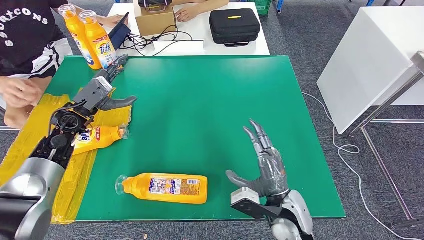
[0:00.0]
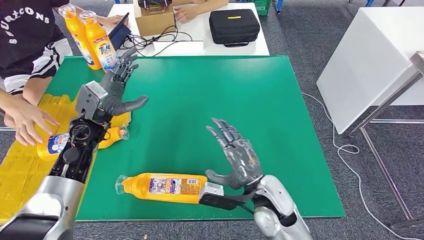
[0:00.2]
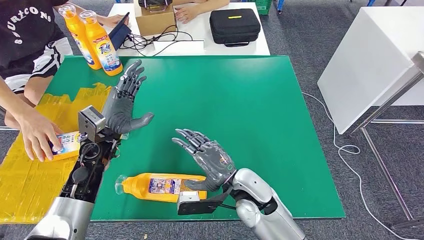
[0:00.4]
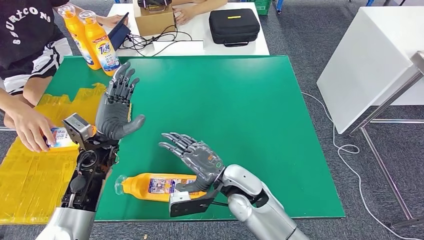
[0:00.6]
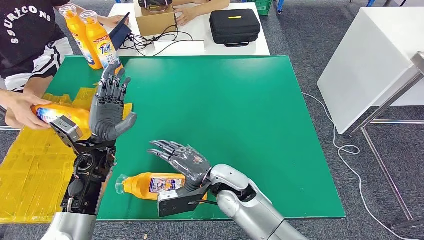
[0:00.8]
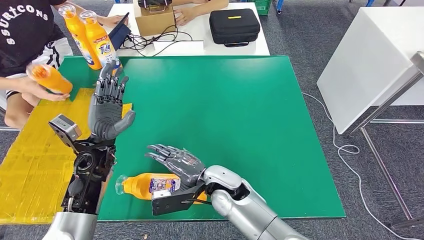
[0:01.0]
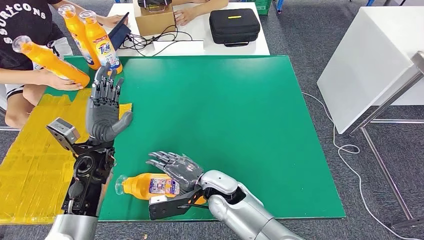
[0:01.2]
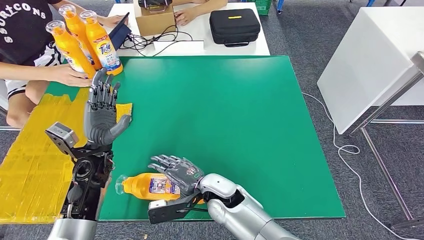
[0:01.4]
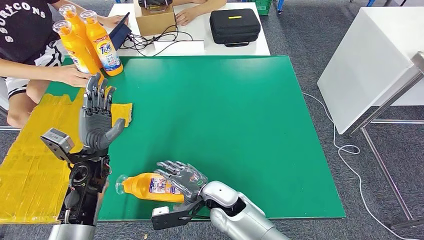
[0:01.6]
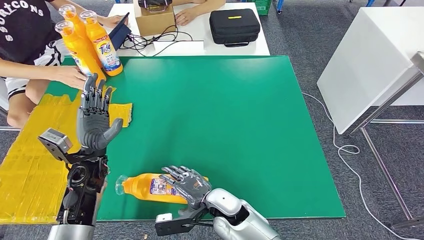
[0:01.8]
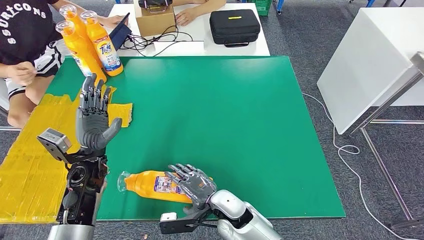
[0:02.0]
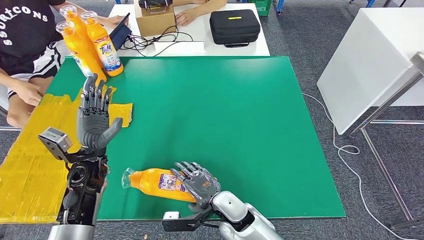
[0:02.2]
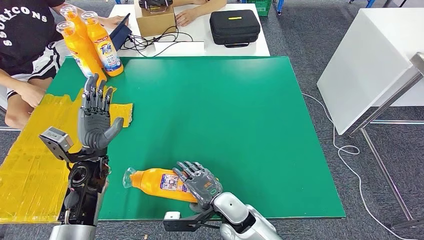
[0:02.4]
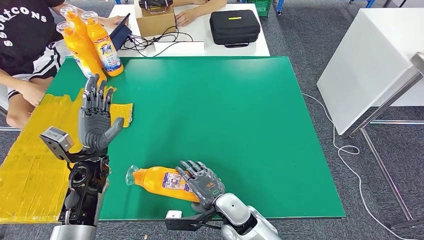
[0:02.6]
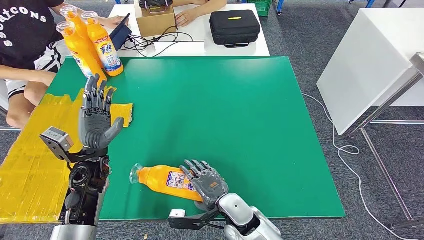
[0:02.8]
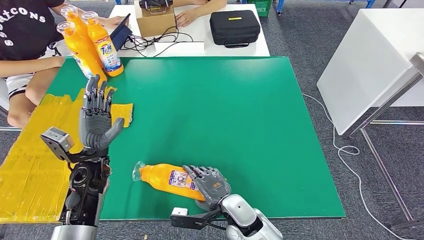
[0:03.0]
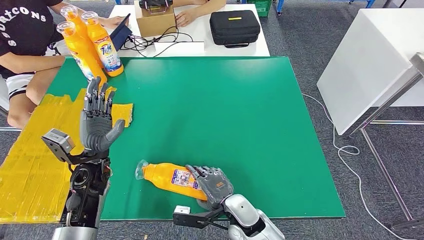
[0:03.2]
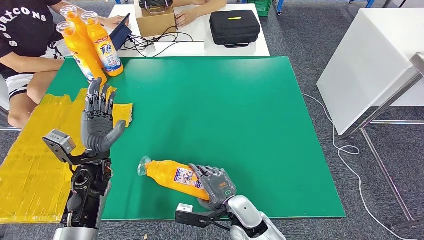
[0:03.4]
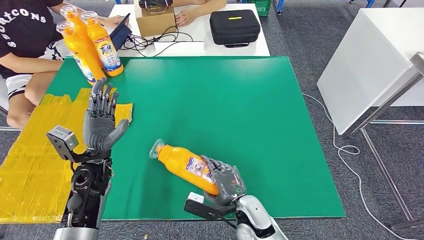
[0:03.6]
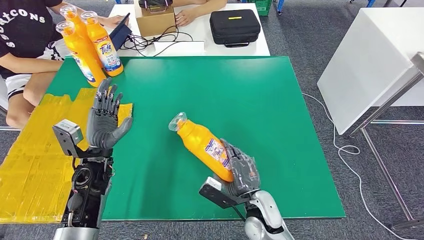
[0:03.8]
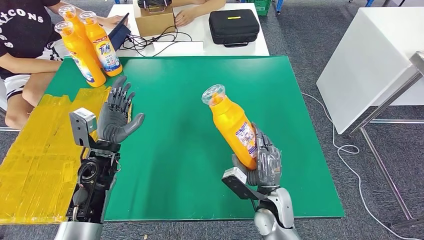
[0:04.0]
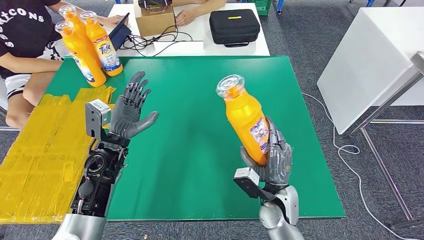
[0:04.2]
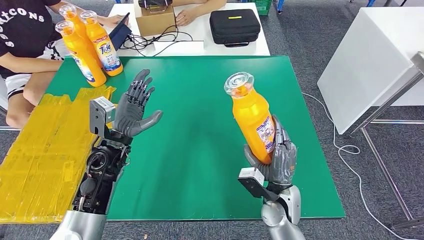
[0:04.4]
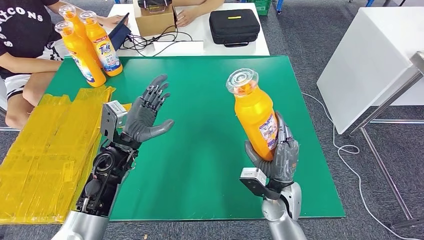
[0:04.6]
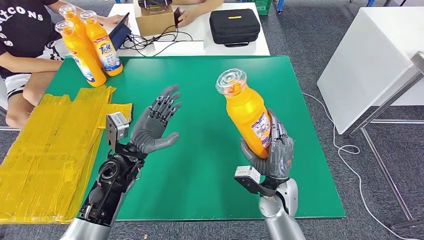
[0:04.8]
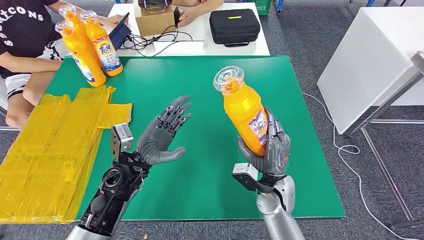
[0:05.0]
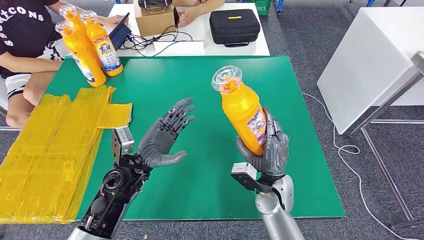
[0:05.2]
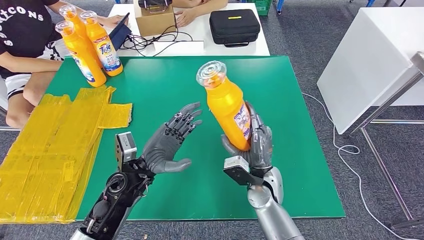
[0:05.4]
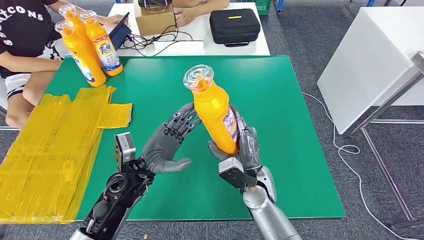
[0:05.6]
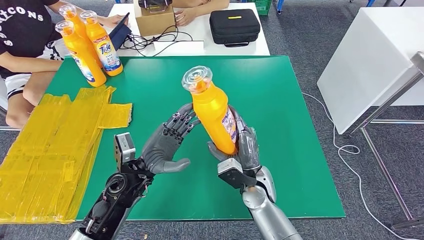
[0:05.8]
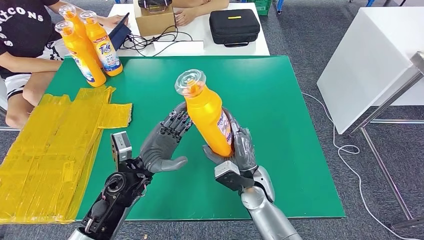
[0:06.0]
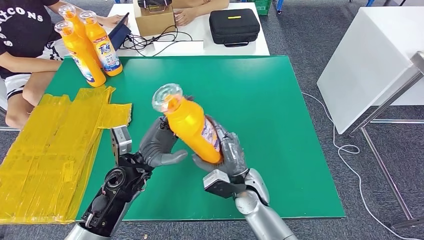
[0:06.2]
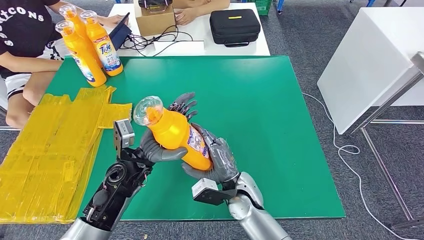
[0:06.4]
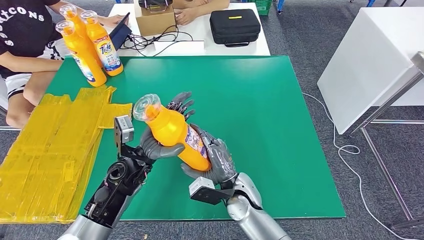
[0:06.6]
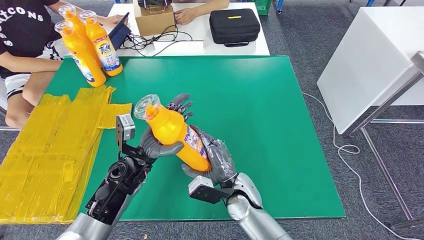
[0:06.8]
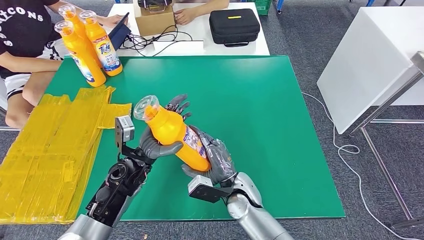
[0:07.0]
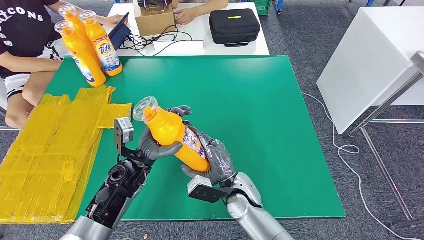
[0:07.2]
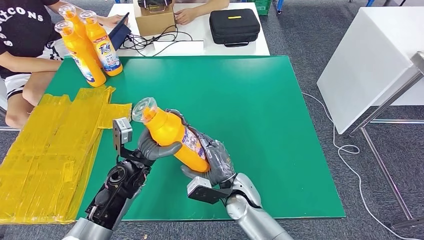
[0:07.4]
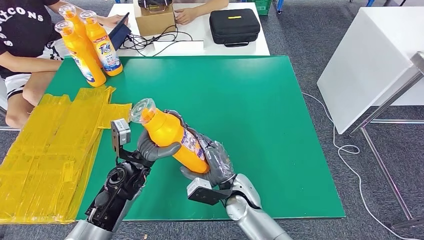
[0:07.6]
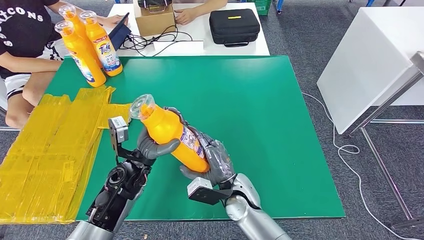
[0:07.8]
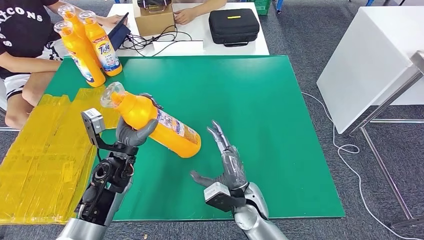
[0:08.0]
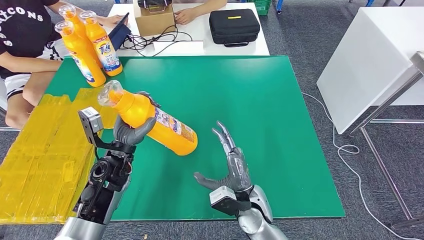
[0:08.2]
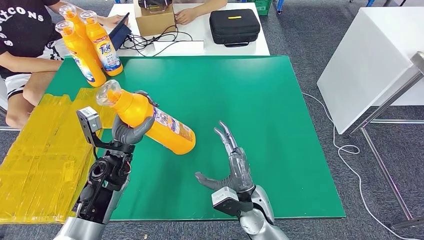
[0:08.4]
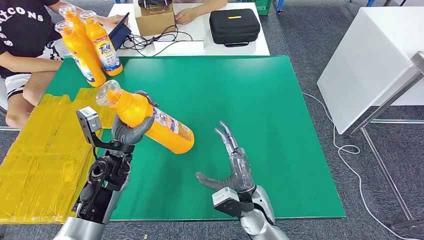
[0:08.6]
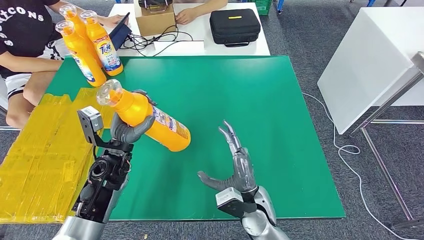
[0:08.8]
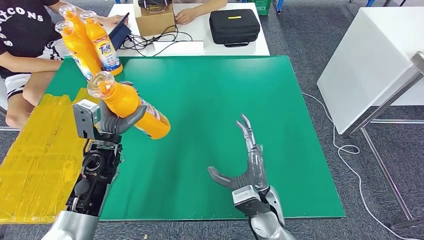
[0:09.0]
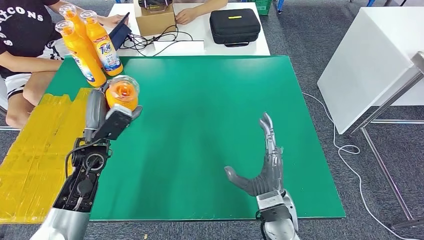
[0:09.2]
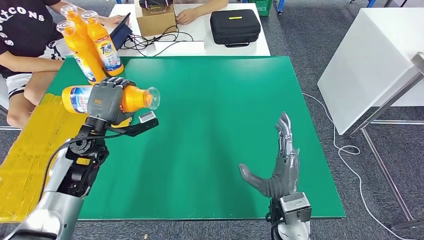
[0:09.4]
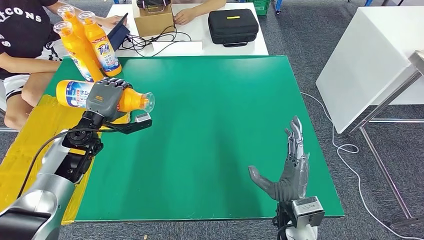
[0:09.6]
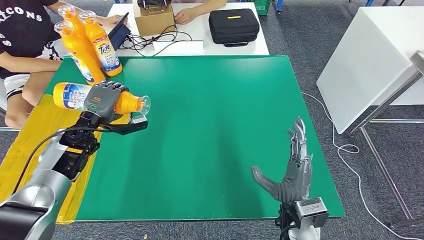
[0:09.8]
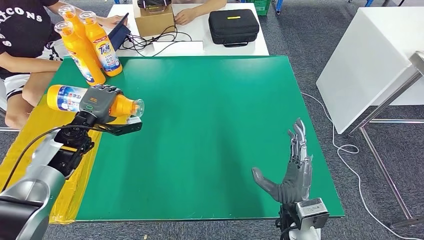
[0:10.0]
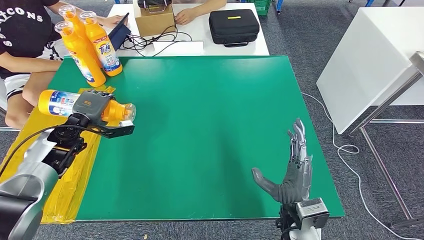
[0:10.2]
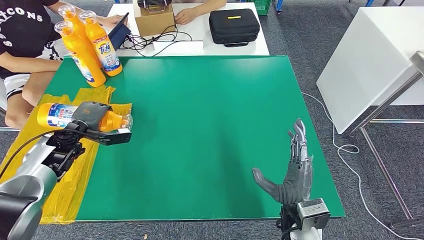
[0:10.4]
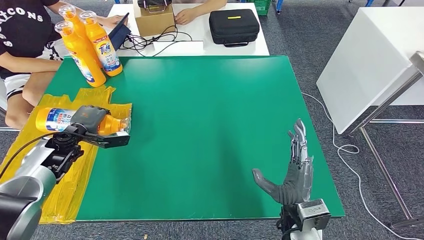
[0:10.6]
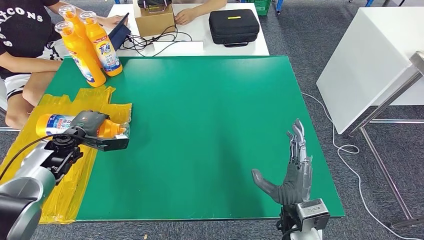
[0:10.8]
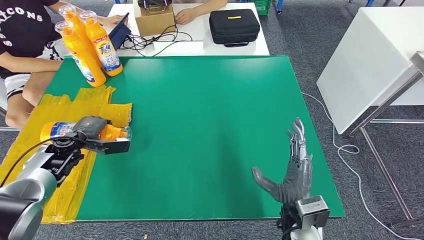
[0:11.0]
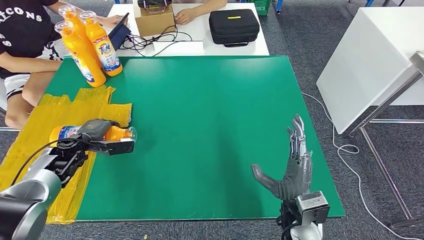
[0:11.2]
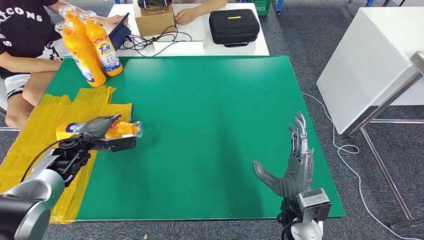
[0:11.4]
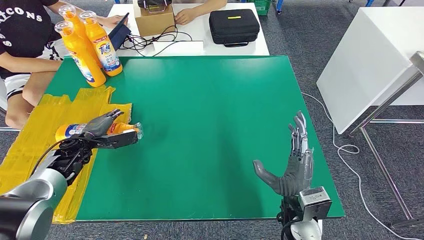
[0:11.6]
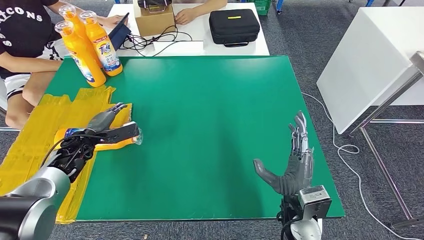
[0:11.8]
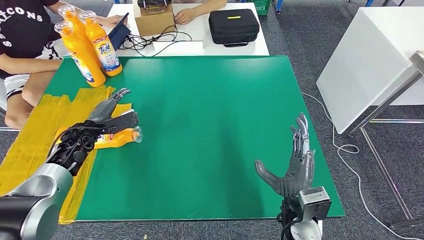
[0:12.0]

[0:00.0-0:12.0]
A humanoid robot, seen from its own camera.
Step, 0:01.8 to 0:07.8: Pick up the bottle from the table.
0:01.6 to 0:03.0: The right hand goes some 5 cm to the right.
0:04.4 to 0:06.0: The right hand goes roughly 5 cm to the left, while the left hand shifts some 10 cm to the right and backward.
0:06.0 to 0:07.6: There are only small adjustments of the hands.
0:07.6 to 0:09.0: The left hand moves to the left, approximately 5 cm, while the right hand moves to the right, roughly 5 cm.
0:09.0 to 0:10.4: The right hand goes approximately 5 cm to the right; the left hand is displaced to the left and forward by roughly 15 cm.

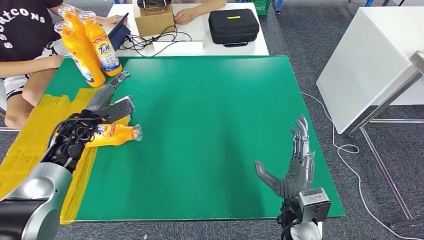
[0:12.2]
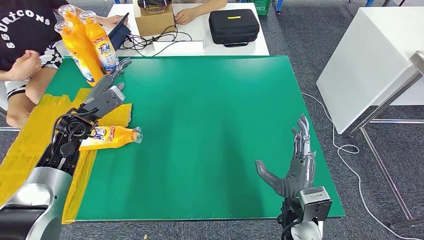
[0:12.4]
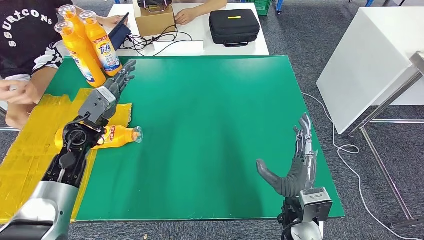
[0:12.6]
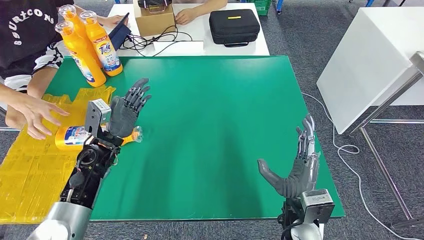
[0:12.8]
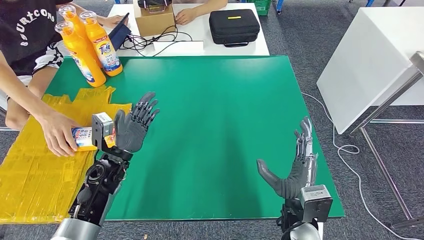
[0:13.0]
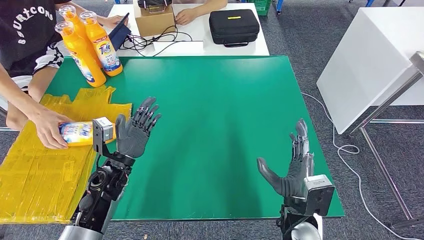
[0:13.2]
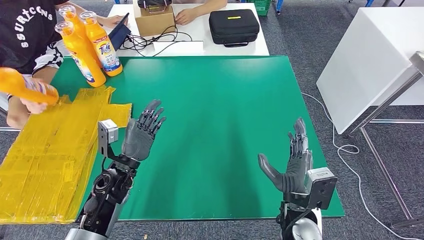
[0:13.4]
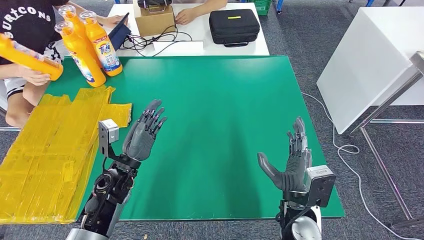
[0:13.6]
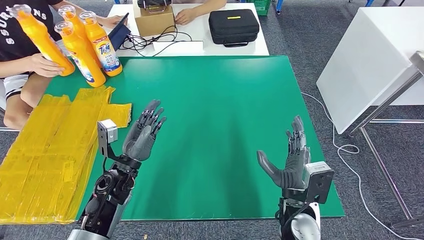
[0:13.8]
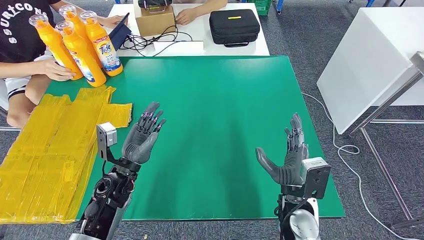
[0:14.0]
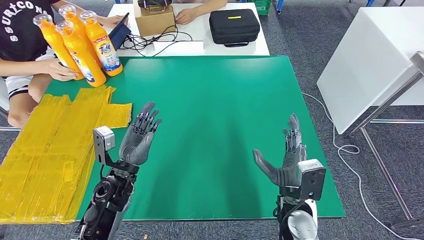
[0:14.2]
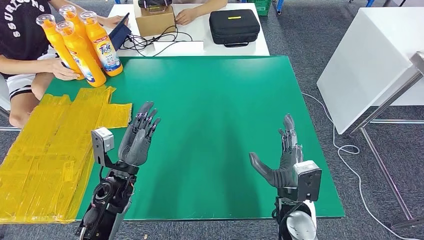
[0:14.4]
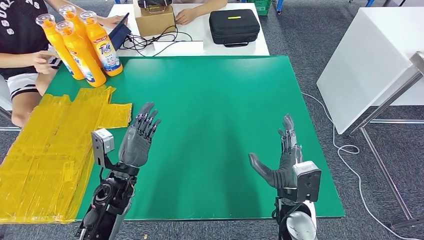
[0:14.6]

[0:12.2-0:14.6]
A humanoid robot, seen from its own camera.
Step, 0:12.2 to 0:14.6: Flip the bottle to face forward.
0:12.2 to 0:13.4: The left hand shifts about 20 cm to the right and backward.
0:13.4 to 0:14.6: The hands stay close to where they were, moving slightly.
